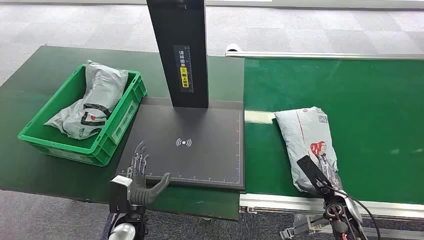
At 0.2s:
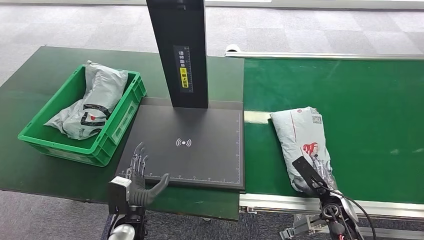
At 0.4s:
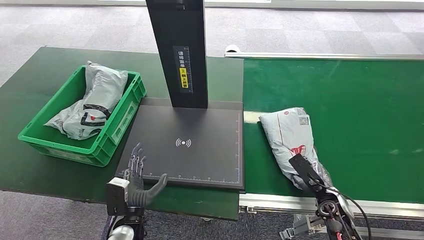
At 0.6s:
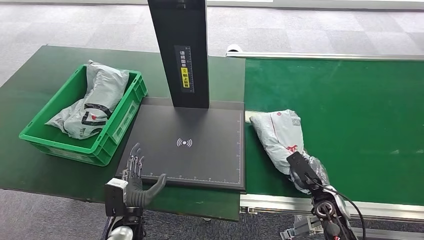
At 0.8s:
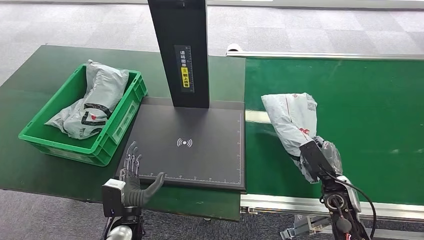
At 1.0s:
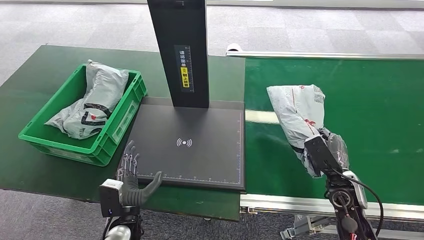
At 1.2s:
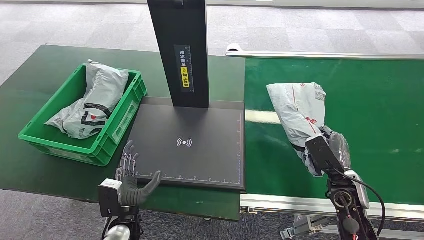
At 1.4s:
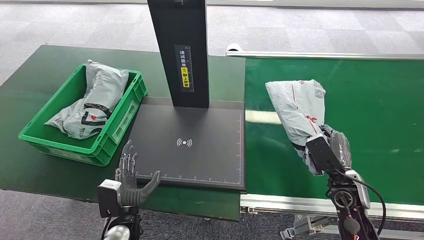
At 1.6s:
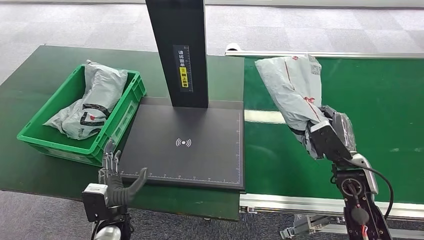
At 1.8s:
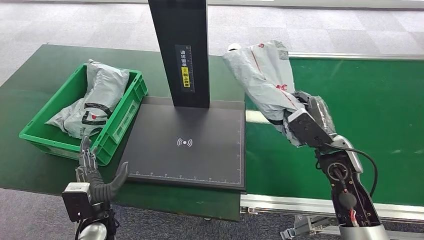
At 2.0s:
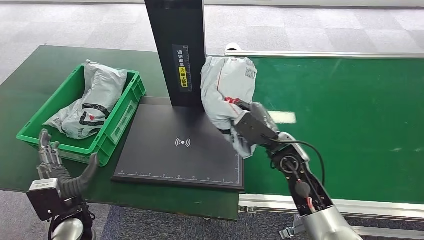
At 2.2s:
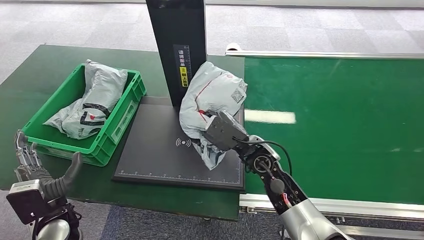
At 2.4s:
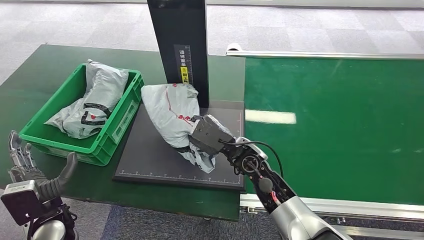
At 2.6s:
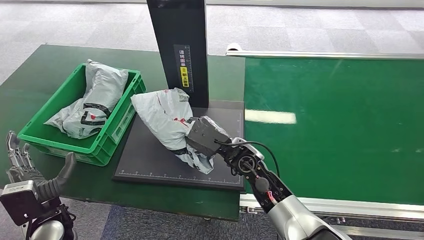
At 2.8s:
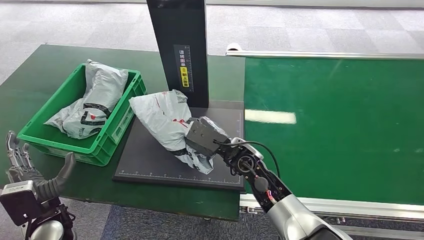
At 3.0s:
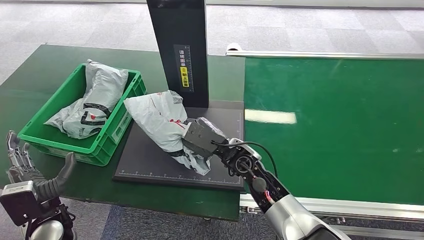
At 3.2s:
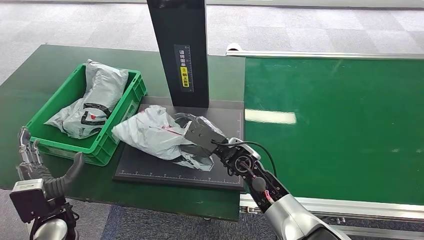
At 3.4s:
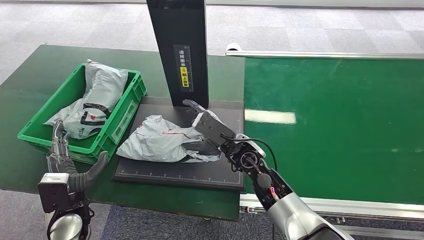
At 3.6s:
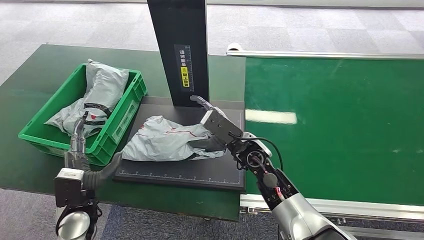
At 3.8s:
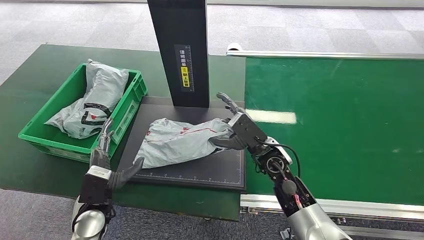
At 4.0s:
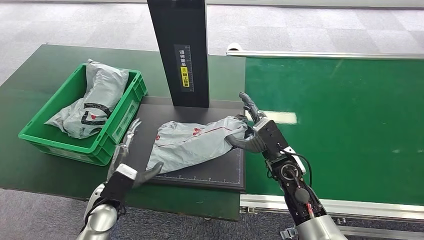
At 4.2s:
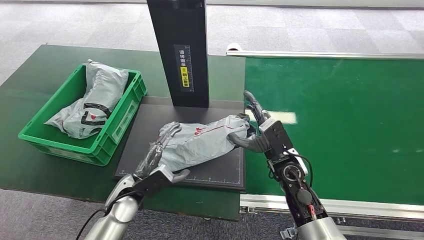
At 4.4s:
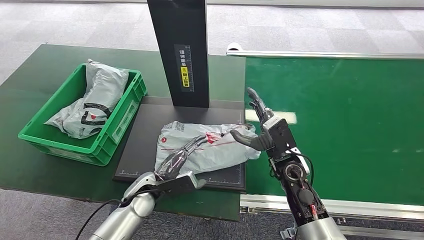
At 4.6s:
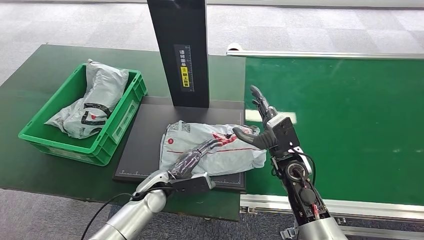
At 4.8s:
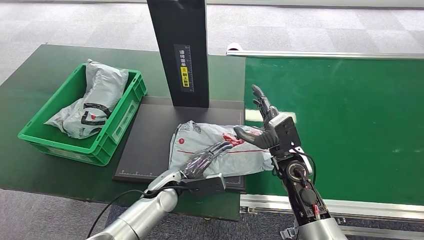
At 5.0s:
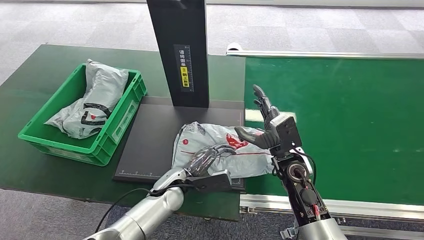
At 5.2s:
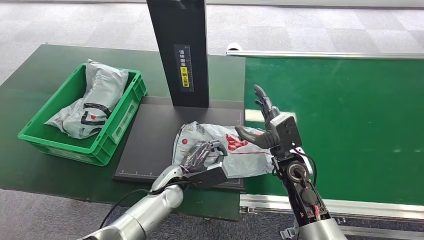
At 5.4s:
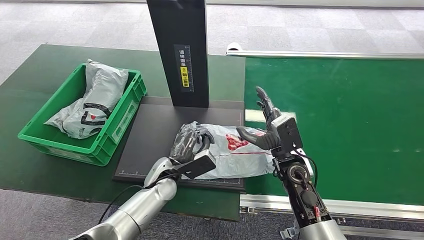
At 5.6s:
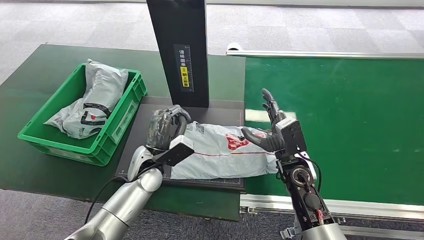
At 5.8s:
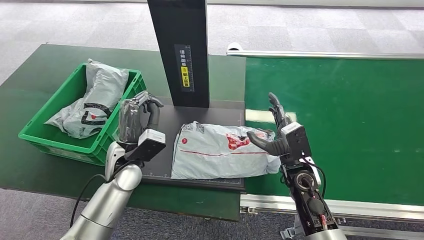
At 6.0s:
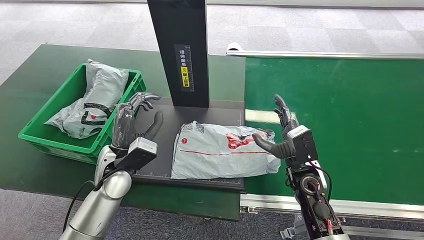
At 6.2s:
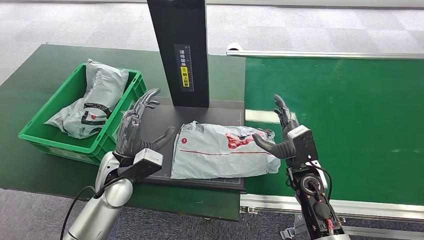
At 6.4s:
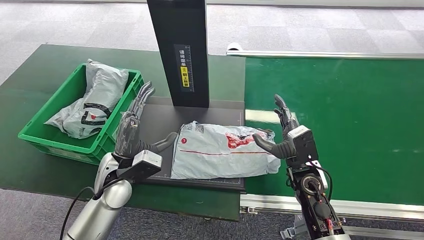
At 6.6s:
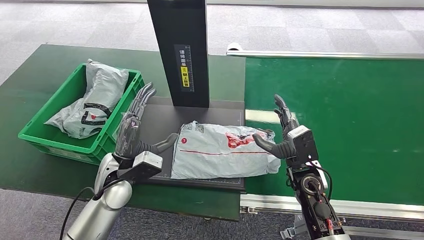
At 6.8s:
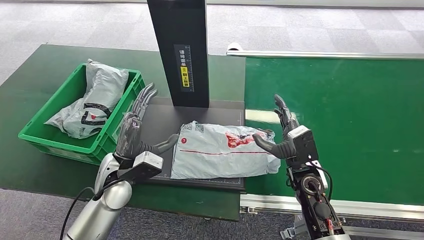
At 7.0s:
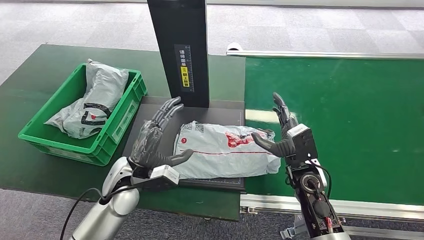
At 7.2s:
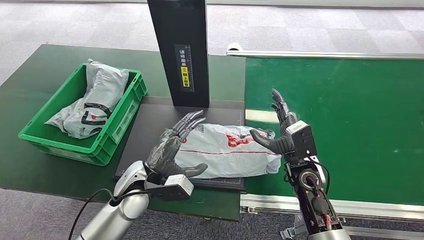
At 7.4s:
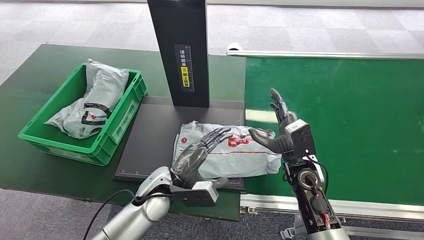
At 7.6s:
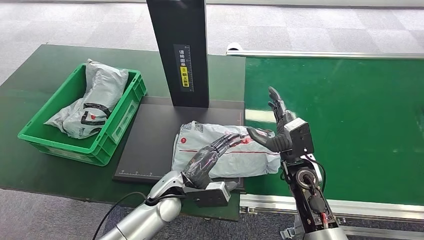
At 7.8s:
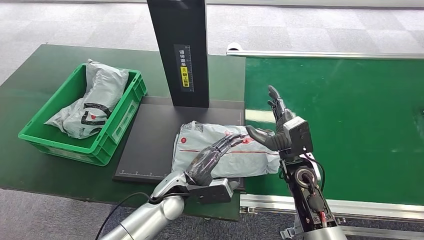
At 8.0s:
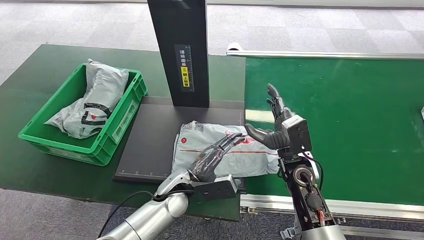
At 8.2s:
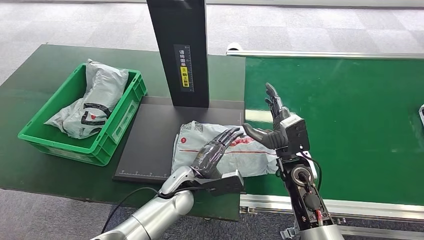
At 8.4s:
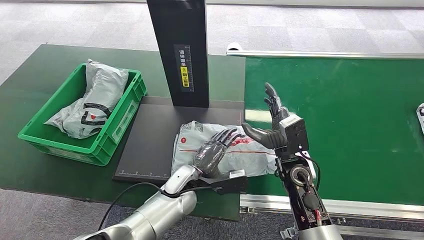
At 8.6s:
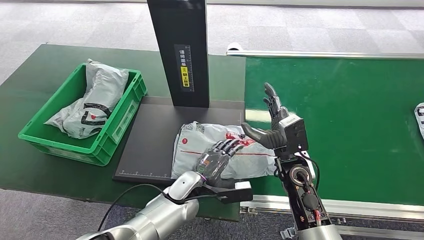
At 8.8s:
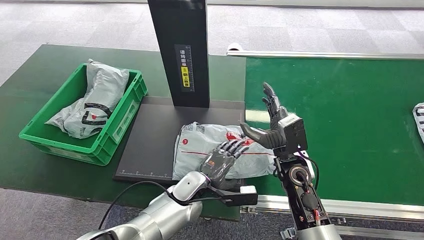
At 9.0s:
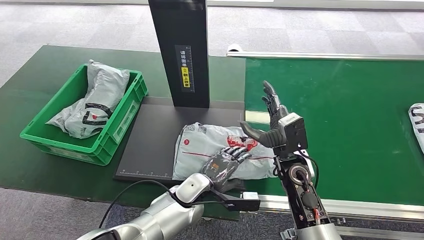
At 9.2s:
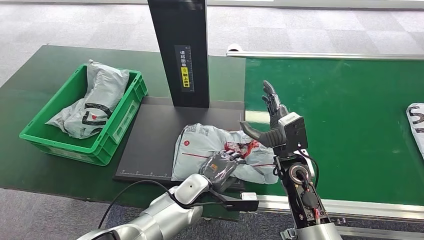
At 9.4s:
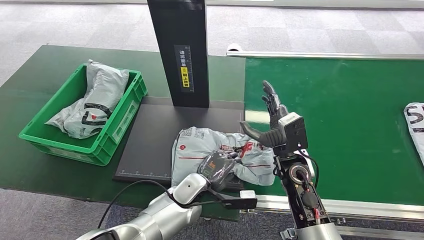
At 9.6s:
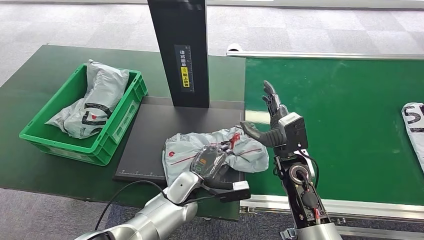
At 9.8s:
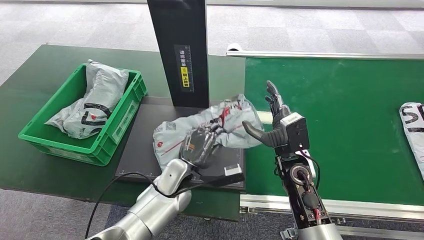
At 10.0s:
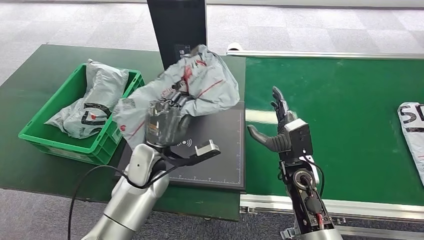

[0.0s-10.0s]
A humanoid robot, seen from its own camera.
Step, 0.0s to 1.2s: Pick up the package from the conveyor belt.
Step, 1.4s to 4.2s: Place the package onto the inbound machine.
2.8s to 4.2s: The right hand moves to the right, some 10 cm, while the left hand shifts approximately 15 cm to the right and forward.
4.2s to 5.8s: The left hand heads upward and forward, covering approximately 10 cm.
5.8s to 7.2s: The left hand ends up roughly 5 cm from where it was.
7.2s to 8.6s: The left hand heads to the right and downward, covering some 10 cm.

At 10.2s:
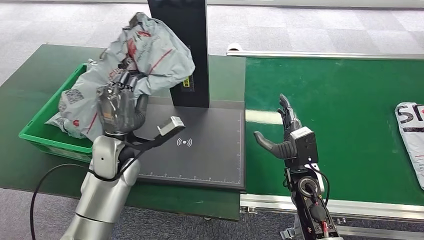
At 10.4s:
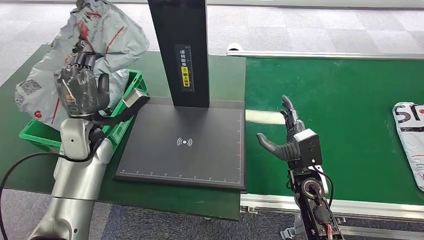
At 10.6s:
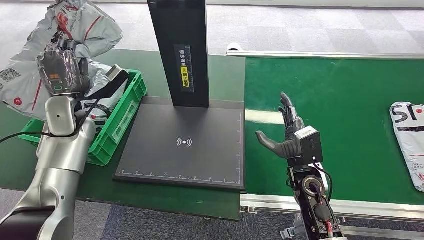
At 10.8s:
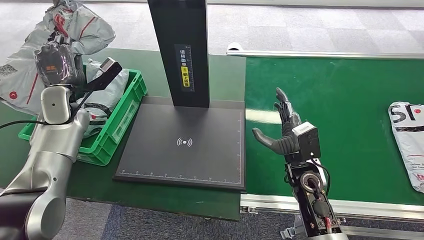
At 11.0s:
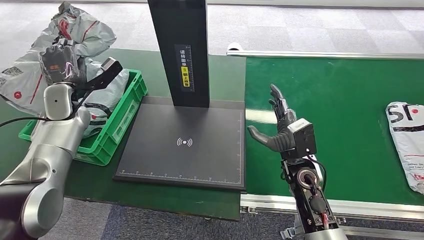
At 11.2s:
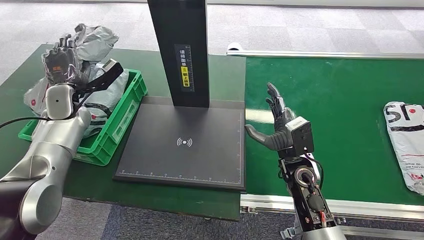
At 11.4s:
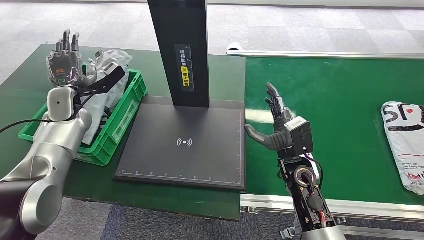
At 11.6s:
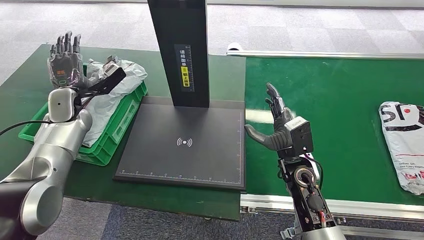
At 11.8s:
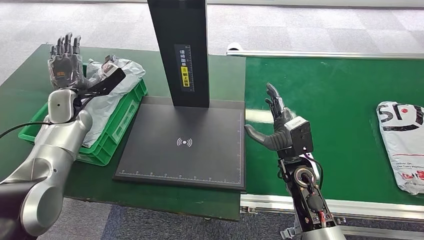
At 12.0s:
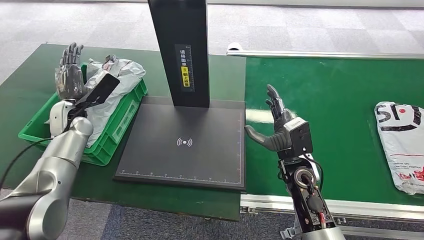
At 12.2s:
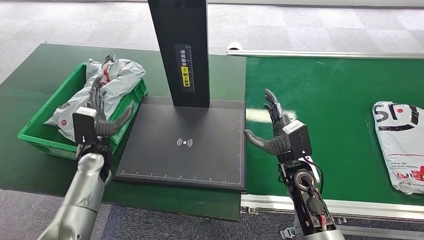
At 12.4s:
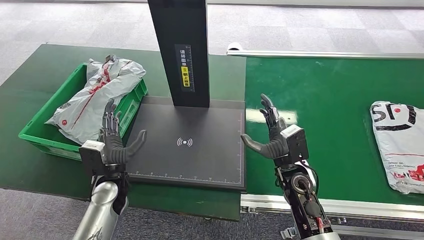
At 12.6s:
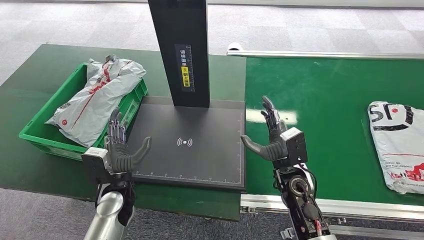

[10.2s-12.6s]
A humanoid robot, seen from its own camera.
Step, 11.0s to 12.6s: Place the package into the parcel locker.
